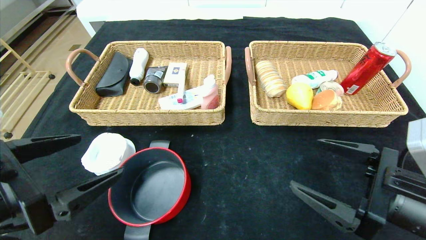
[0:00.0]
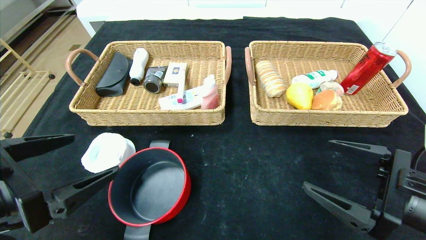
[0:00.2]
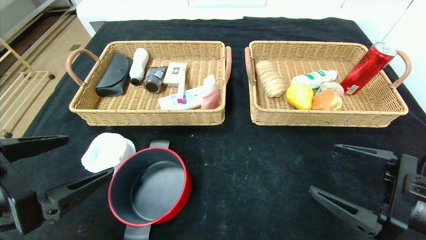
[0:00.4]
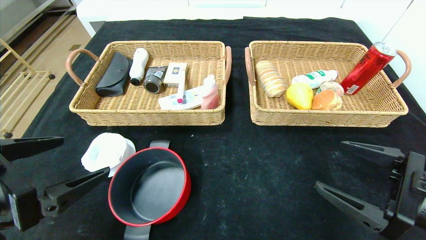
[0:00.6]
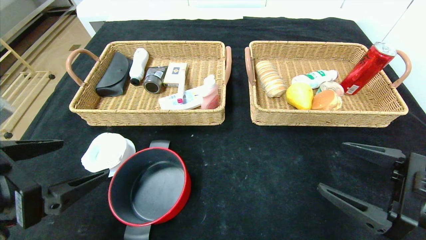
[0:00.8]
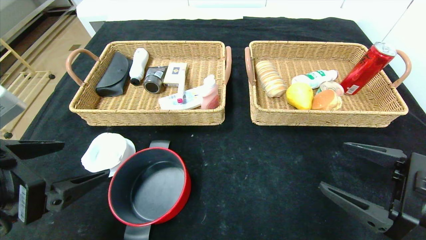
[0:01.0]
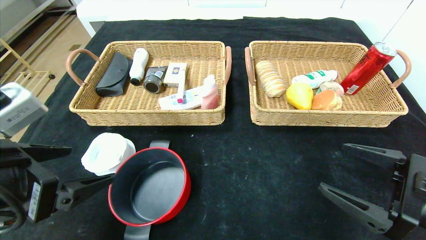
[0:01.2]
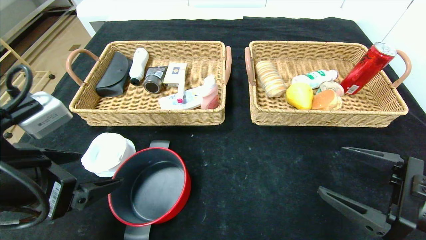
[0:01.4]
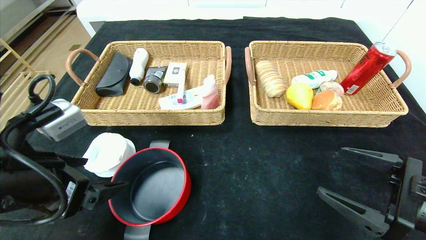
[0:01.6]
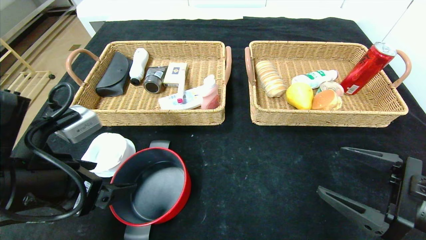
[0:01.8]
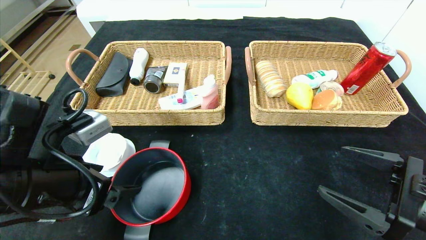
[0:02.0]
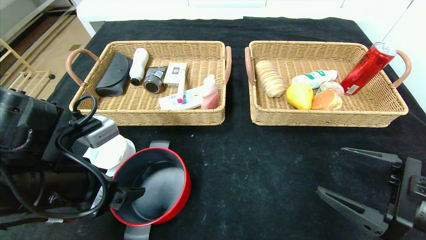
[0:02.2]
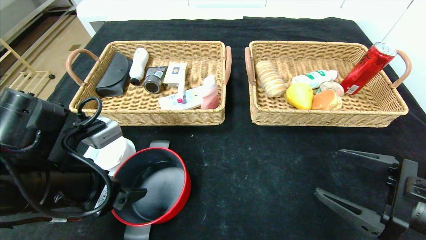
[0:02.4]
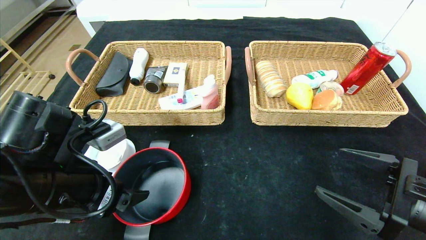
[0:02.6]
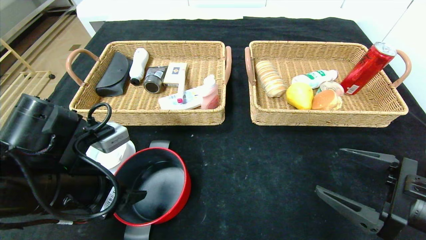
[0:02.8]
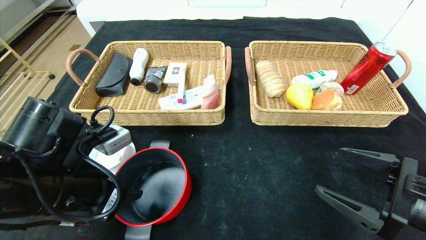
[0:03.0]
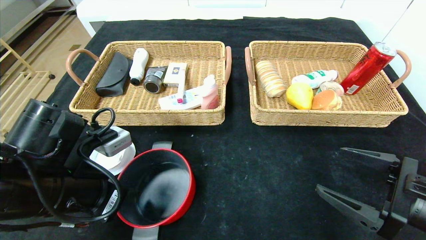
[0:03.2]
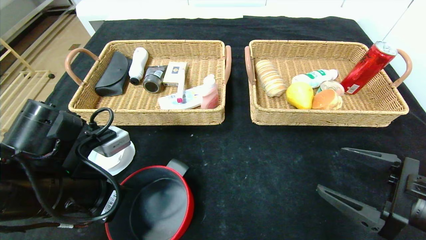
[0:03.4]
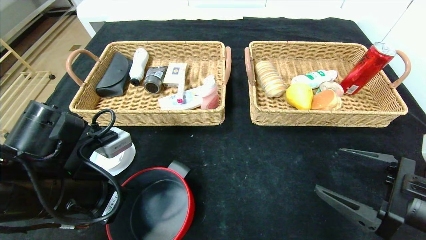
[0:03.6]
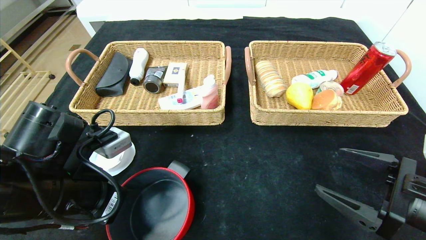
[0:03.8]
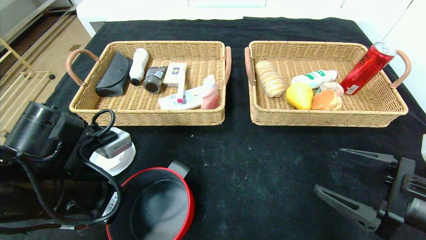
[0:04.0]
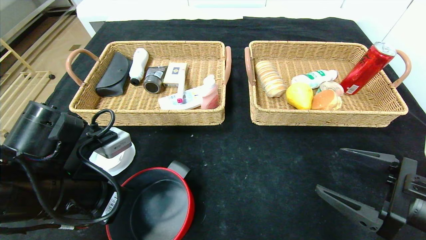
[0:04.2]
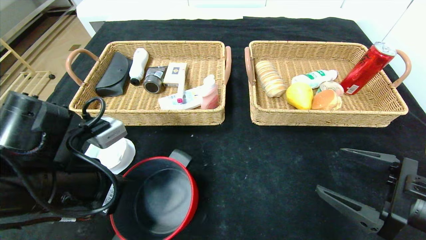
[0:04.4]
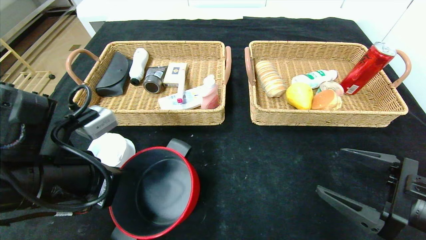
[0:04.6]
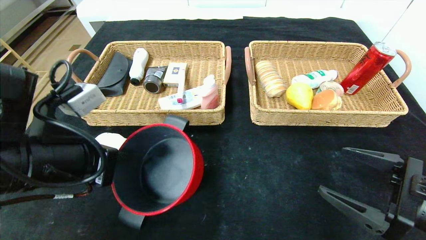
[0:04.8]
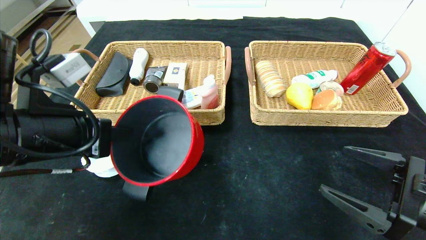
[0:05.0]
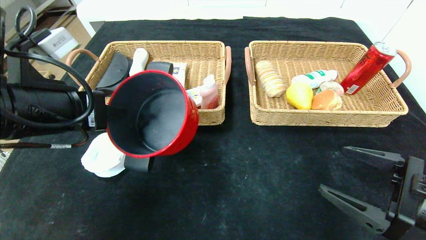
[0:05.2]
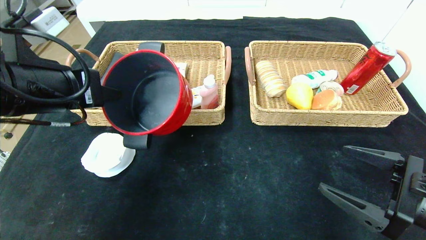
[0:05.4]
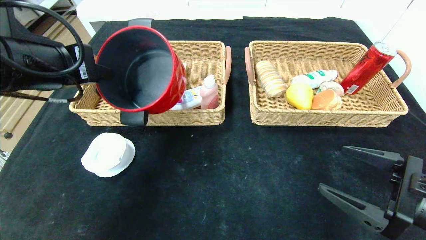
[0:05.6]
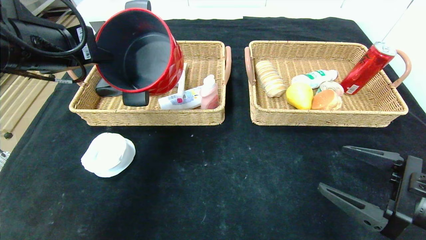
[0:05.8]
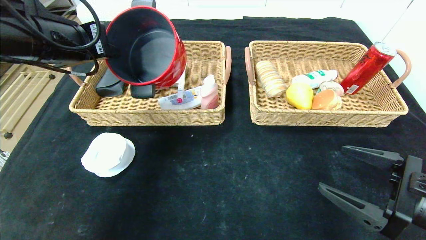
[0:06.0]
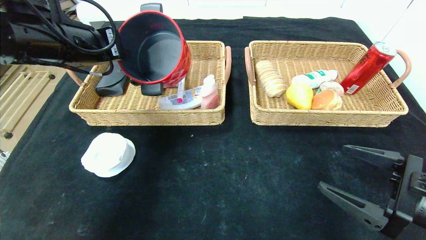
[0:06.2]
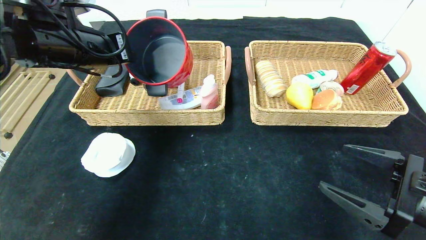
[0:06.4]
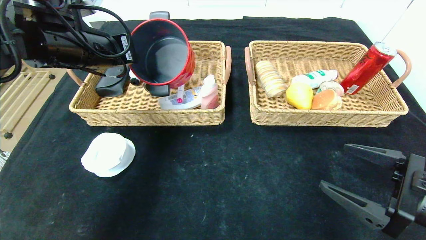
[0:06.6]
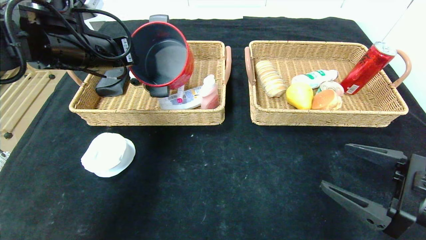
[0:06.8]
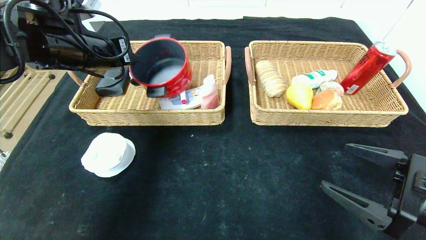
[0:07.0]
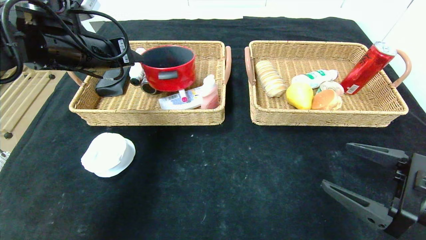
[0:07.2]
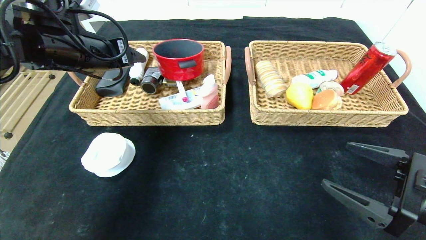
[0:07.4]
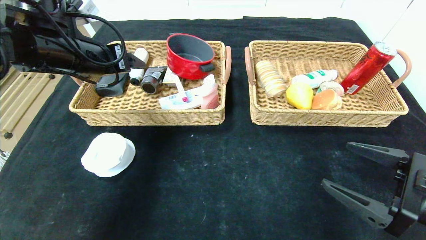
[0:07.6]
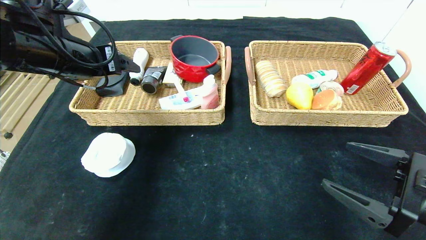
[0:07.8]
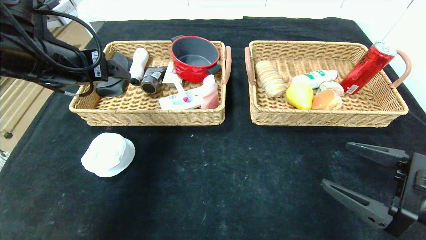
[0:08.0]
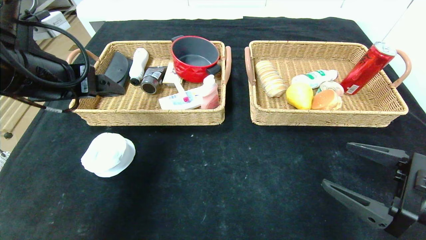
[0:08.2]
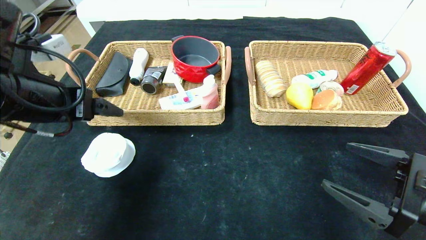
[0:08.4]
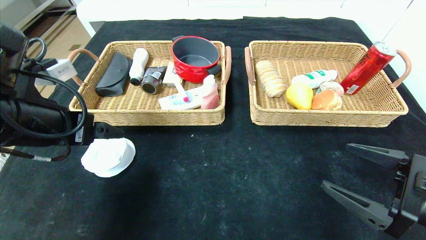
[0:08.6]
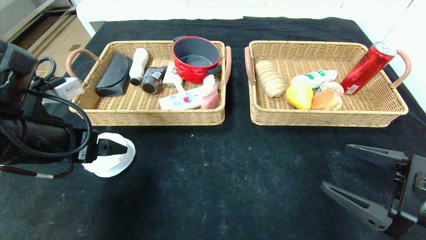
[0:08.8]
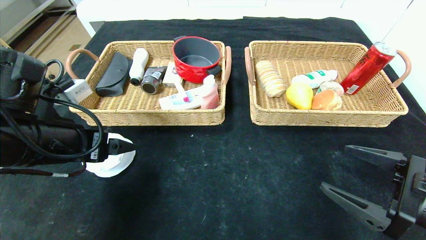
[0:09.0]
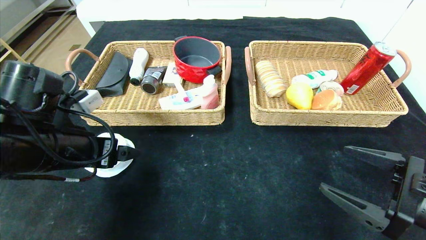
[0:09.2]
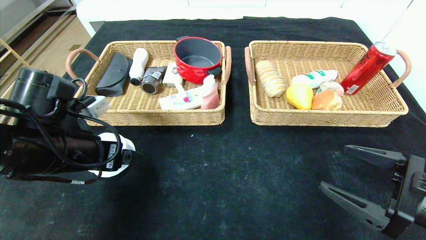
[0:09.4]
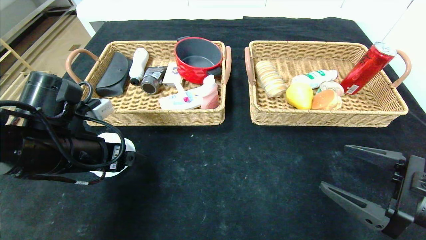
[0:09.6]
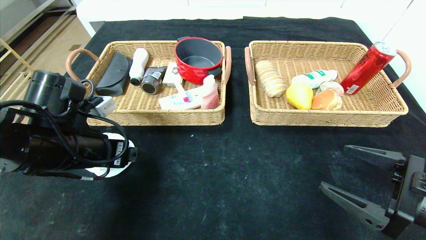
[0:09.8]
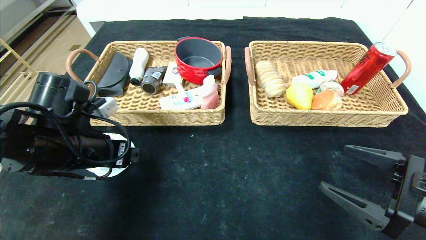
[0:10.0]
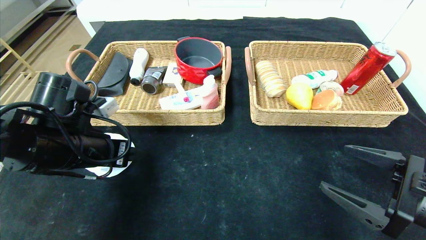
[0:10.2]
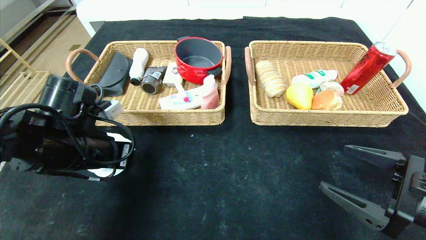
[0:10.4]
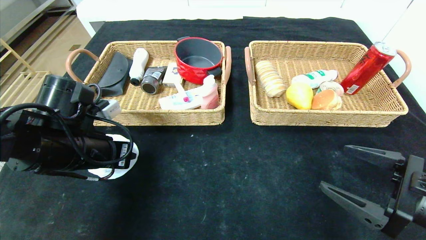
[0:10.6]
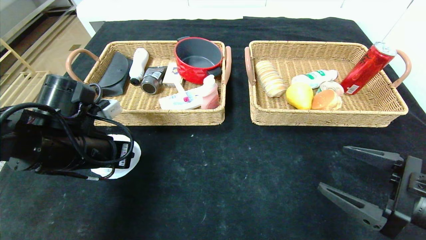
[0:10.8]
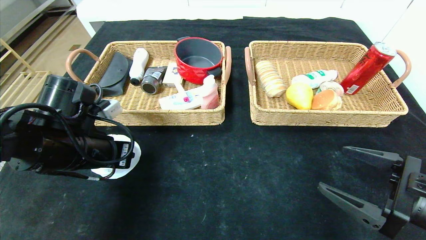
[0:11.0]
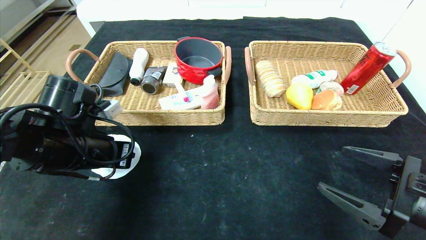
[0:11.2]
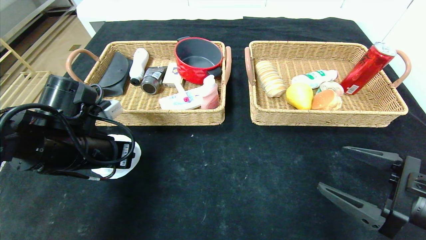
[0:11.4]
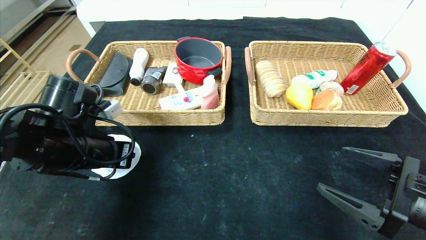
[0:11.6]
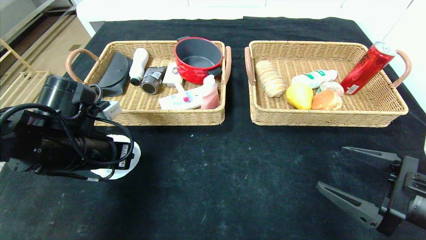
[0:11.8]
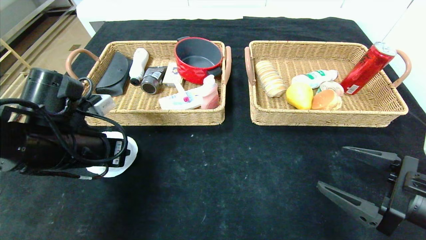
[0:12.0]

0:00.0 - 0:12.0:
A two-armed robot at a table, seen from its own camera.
Step, 0:00.0 - 0:07.2: Grasp the red pot and put it in the left basket.
0:01.6 - 0:03.0: The left gripper ends up approximately 5 cm from where it was, and closes.
0:03.0 - 0:04.4: The left gripper closes.
0:04.4 - 0:06.0: The left gripper moves upward and forward, some 20 cm.
0:06.0 - 0:07.6: The left gripper changes place by roughly 5 cm, and opens its fingers.
0:07.6 - 0:09.0: The left gripper heads backward and downward, covering roughly 15 cm.
0:09.0 - 0:10.4: The left gripper shifts by approximately 5 cm, and closes up.
0:10.4 - 0:12.0: The left gripper closes up.

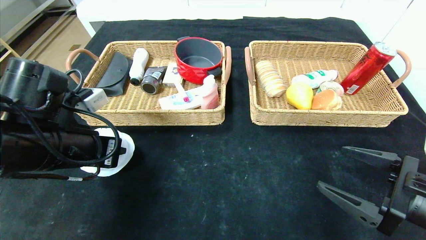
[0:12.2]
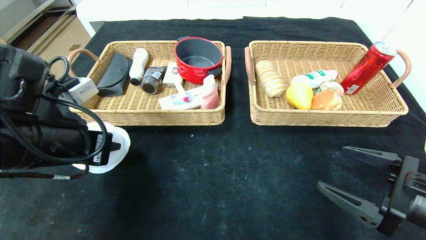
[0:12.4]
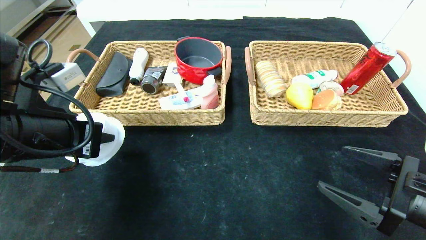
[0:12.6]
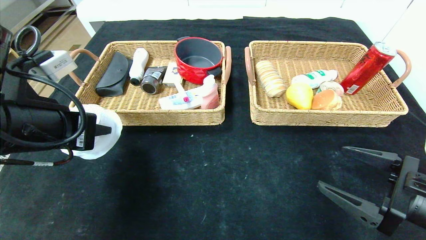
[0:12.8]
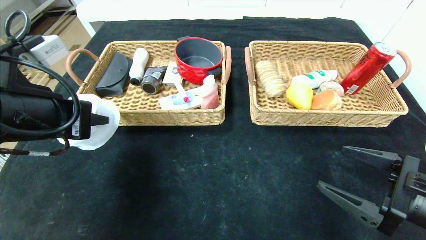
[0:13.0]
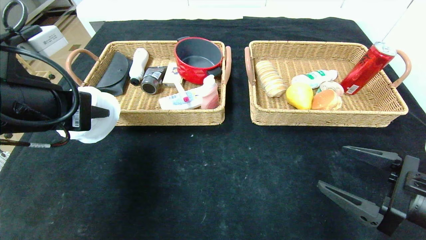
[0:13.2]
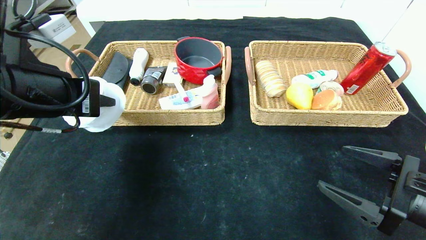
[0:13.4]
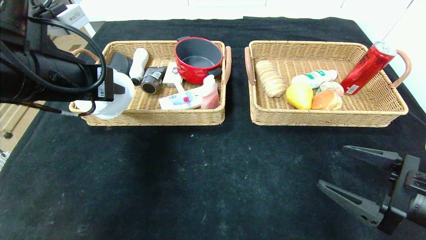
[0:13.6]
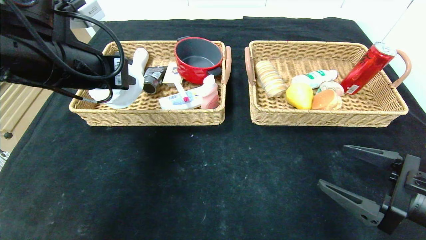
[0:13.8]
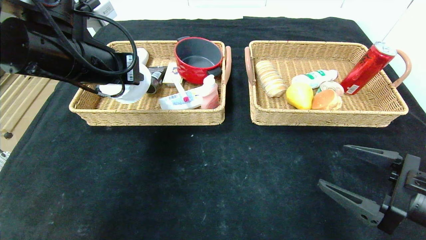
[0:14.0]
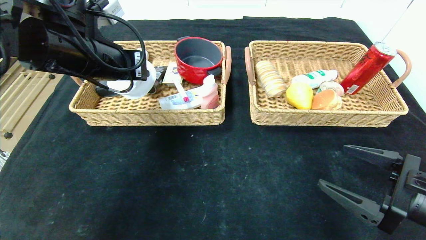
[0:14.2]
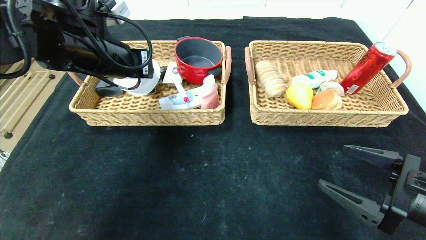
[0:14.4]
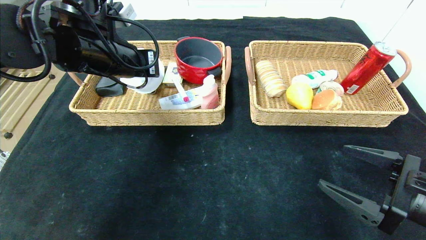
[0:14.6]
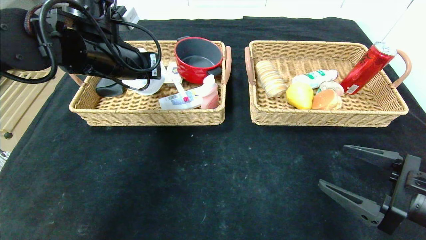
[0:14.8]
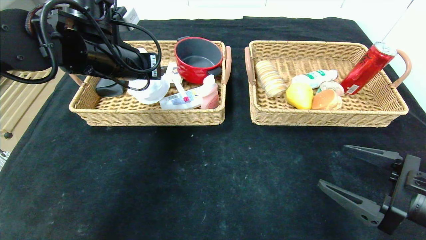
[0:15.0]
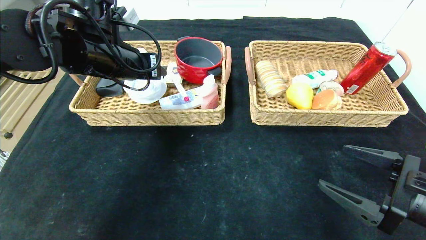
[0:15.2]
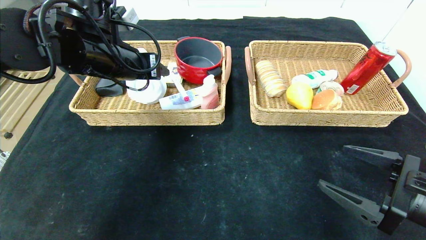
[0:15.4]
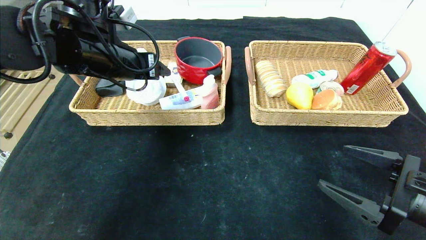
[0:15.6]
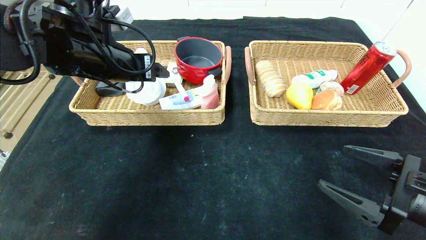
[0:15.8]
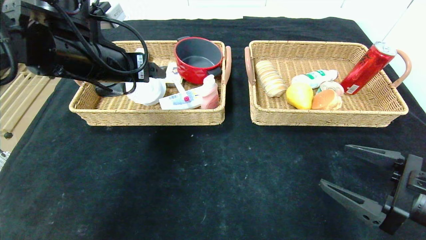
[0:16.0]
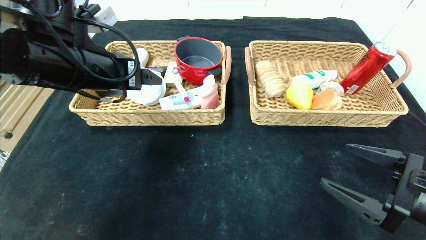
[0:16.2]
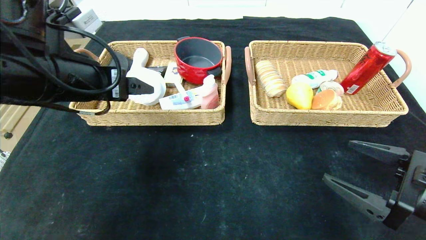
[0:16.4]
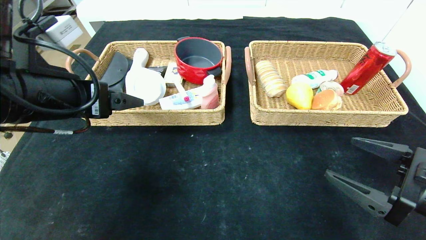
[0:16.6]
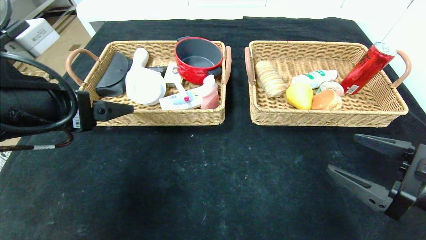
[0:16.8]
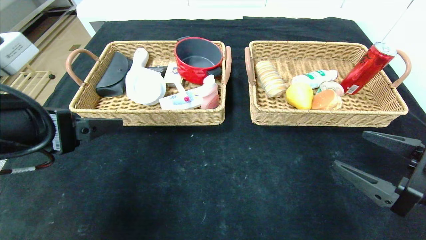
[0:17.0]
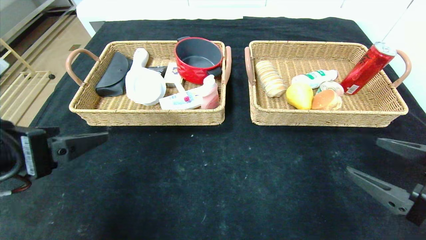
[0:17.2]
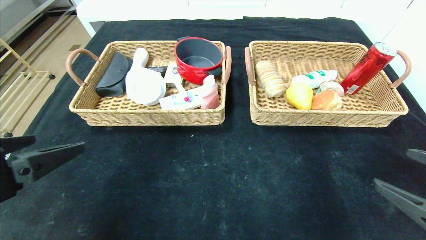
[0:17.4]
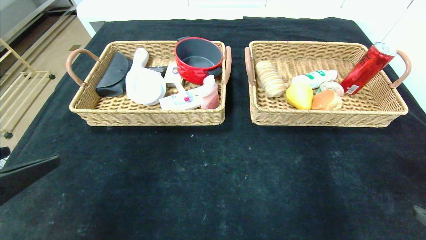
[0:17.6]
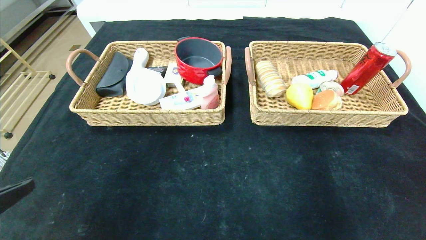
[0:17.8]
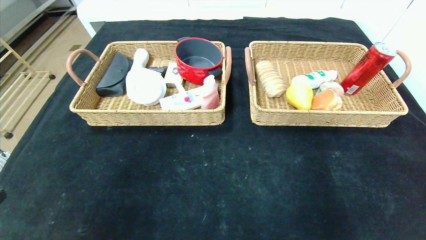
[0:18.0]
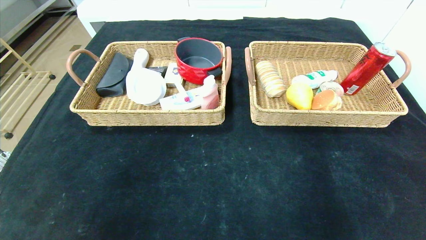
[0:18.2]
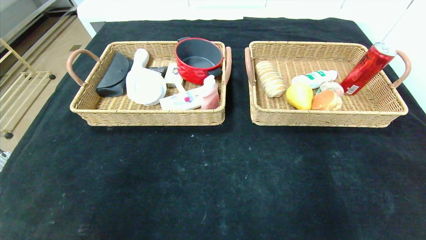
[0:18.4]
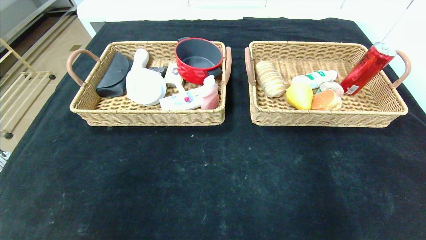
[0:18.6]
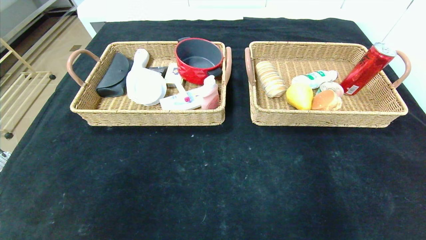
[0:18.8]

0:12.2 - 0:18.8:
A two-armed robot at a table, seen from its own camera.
Step, 0:12.2 - 0:15.2: Grasp the tape and put it in the left basket.
0:12.2 - 0:13.8: The left gripper is displaced upward by roughly 10 cm.
0:13.8 - 0:15.4: The left gripper is displaced forward by roughly 5 cm, and opens up.
0:15.4 - 0:17.2: The left gripper moves backward, some 20 cm, and opens up.
0:17.2 - 0:18.8: The grippers both shift backward by some 20 cm.
